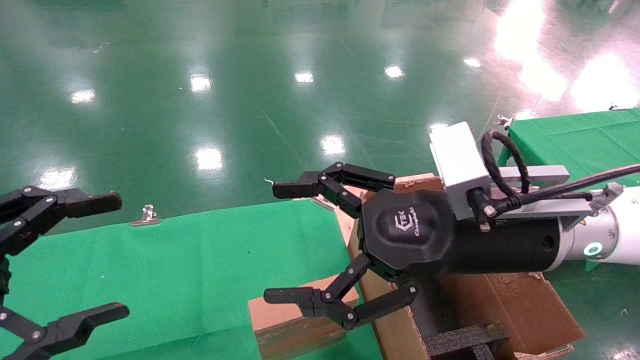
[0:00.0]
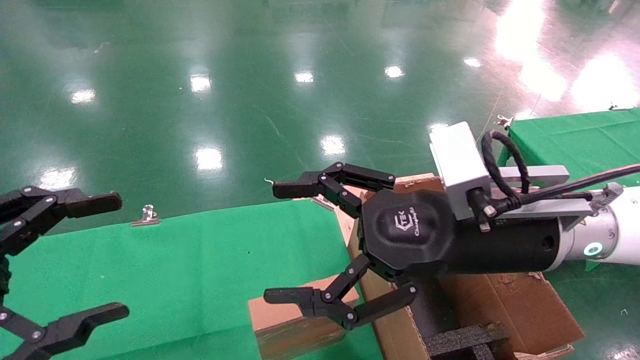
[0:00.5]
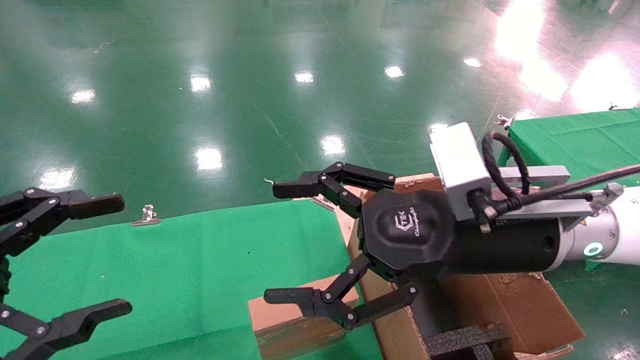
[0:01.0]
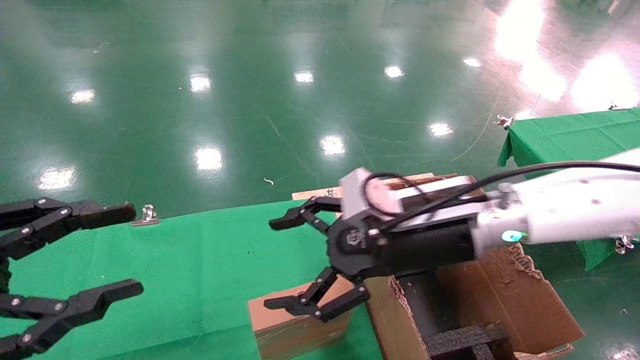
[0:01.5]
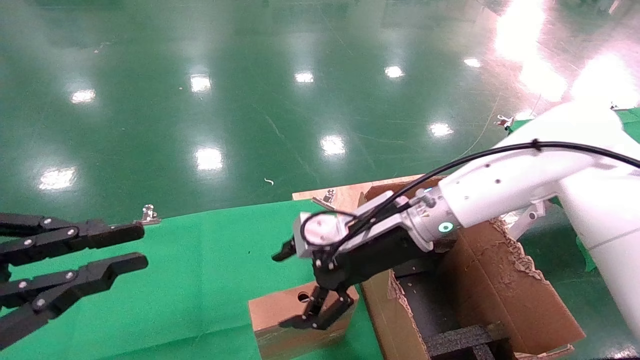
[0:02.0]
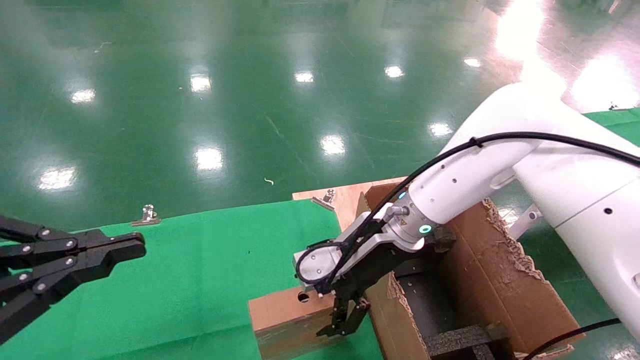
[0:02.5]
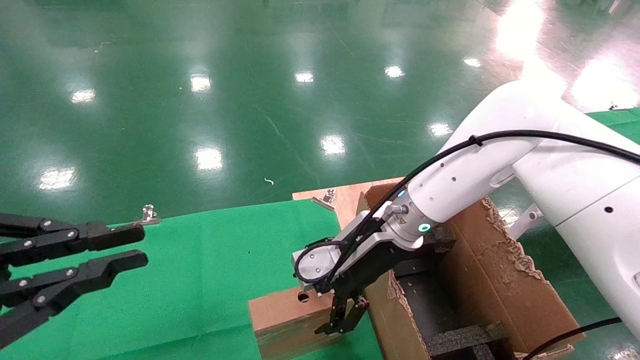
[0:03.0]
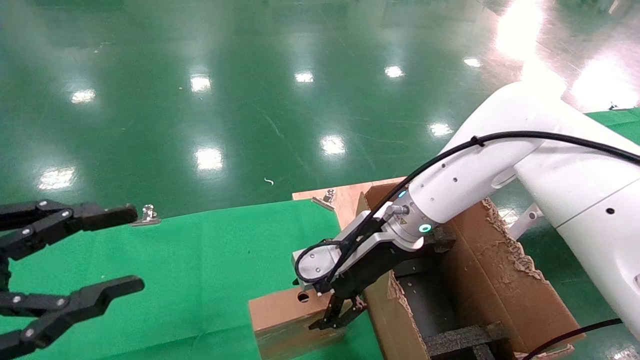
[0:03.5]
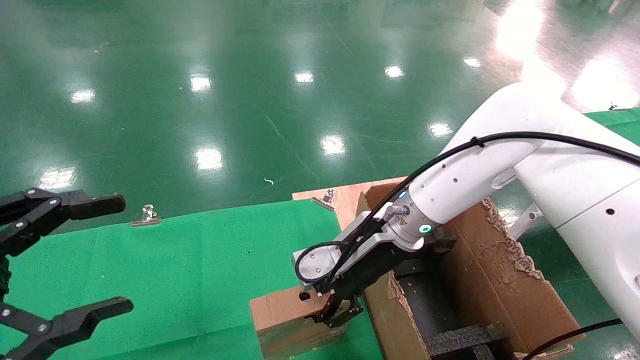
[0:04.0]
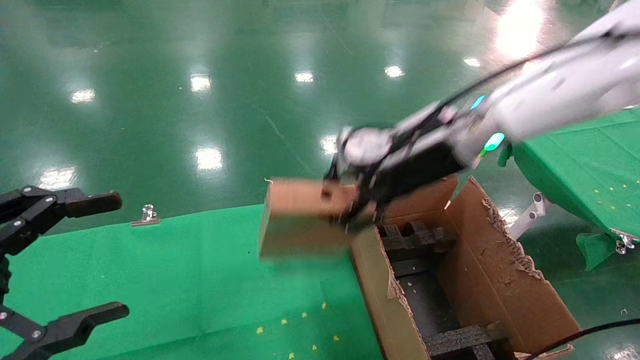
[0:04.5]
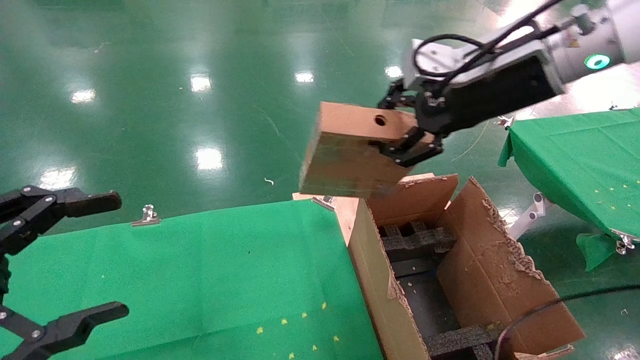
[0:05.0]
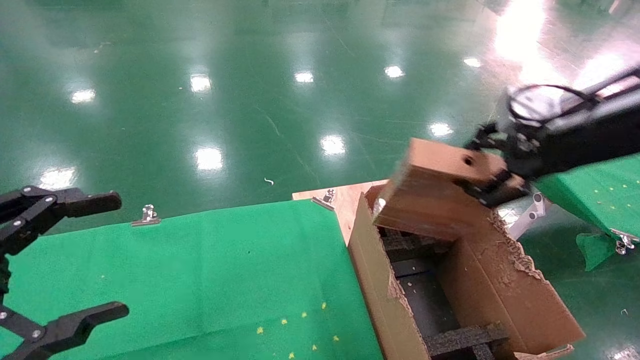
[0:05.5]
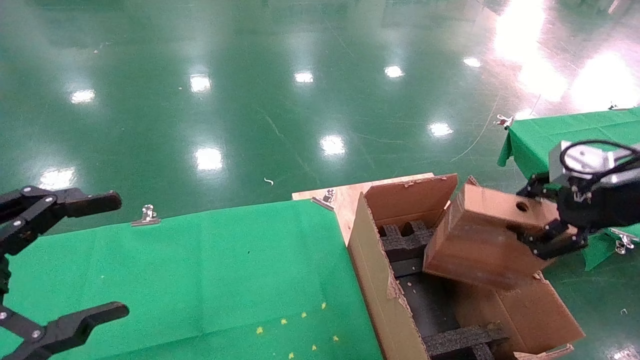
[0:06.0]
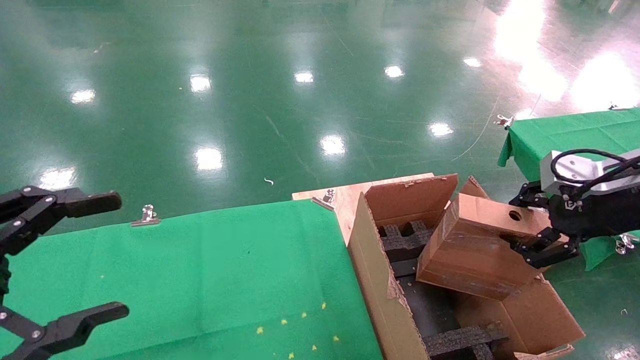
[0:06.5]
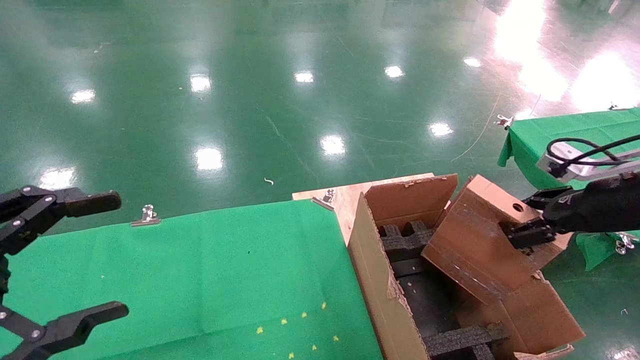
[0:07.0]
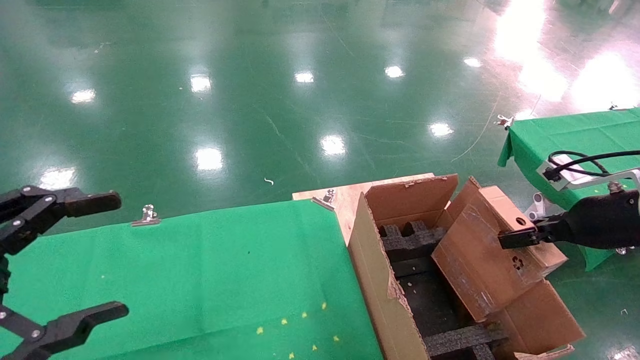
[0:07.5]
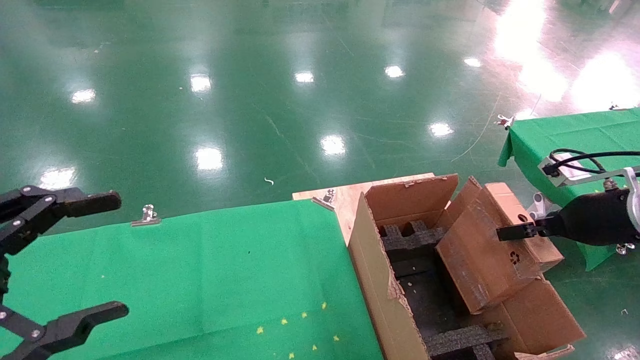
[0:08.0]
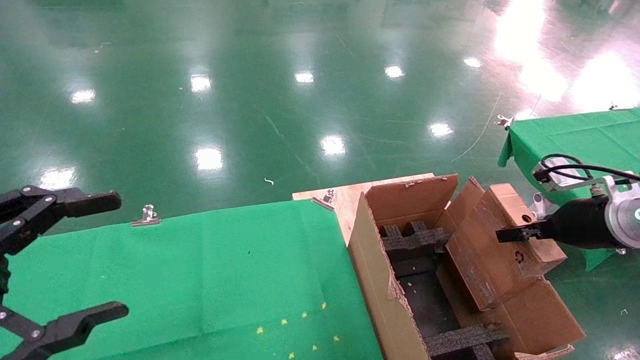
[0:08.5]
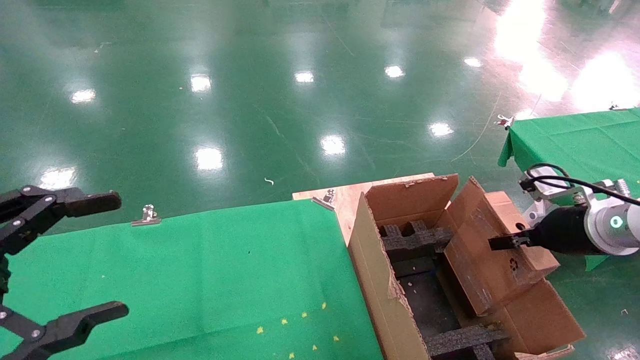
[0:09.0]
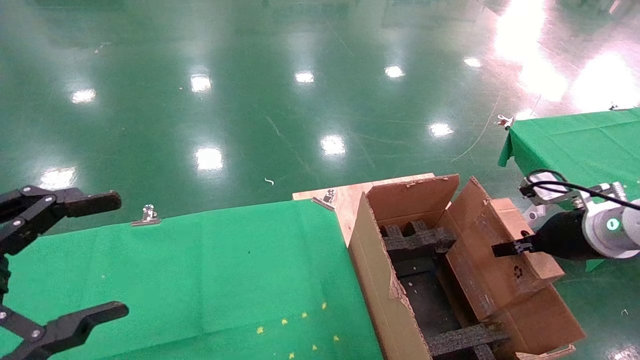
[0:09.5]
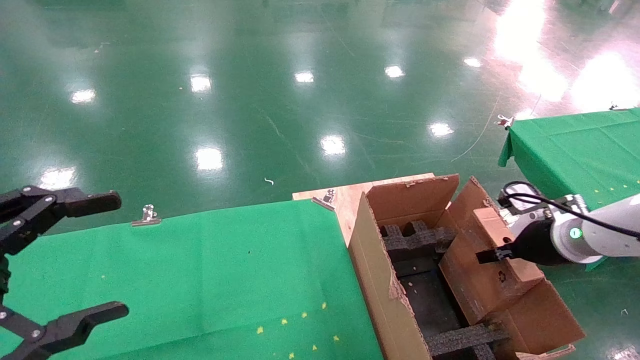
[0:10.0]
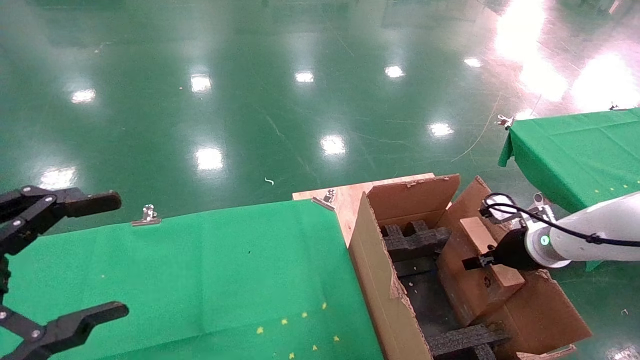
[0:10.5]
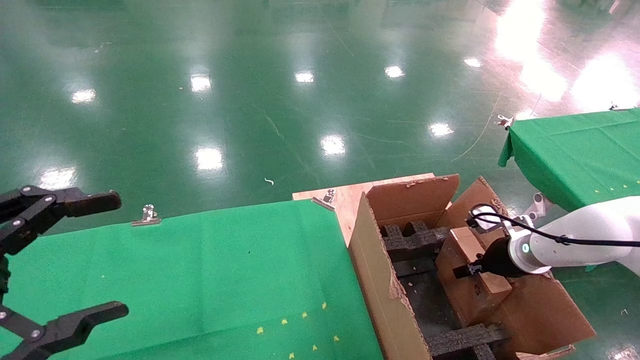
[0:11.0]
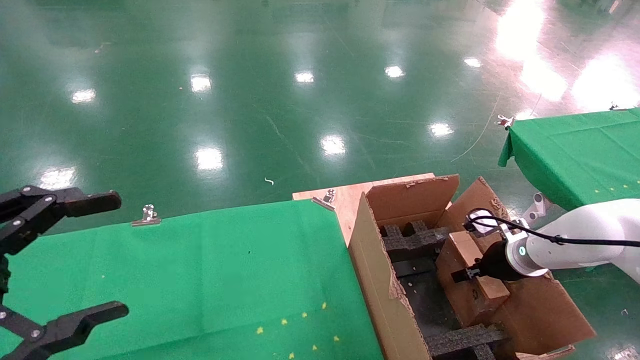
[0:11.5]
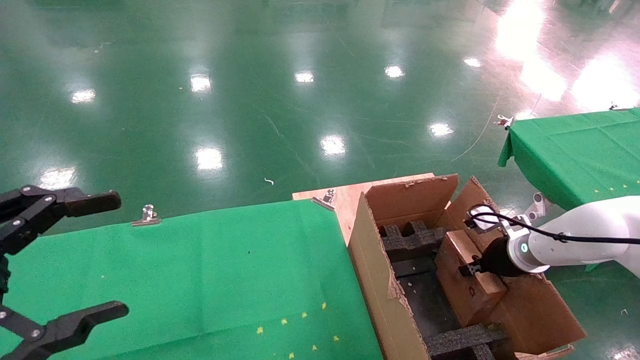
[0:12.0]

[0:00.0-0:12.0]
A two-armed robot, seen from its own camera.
Task of the whole recording: using a robotic arm to pick up a cardboard box and palace it the carton.
Step, 0:01.5 to 0:03.5: Pick up the mouse and the power cord paper box.
0:00.0 to 0:02.0: The left gripper closes its fingers; the right gripper is displaced forward, downward and to the left by some 15 cm.
0:02.0 to 0:04.0: The right gripper closes its fingers. Meanwhile the left gripper opens up.
0:04.0 to 0:06.0: The right gripper shifts some 30 cm to the right and backward.
0:06.0 to 0:08.0: The right gripper moves downward, approximately 10 cm.
0:08.0 to 0:10.0: The right gripper heads downward and forward, covering approximately 10 cm.
0:10.0 to 0:12.0: The right gripper is displaced downward and forward by approximately 10 cm.

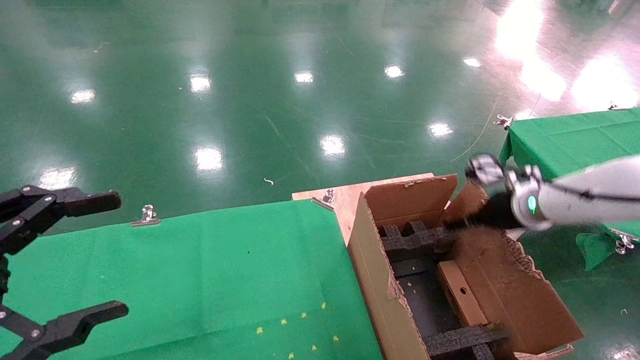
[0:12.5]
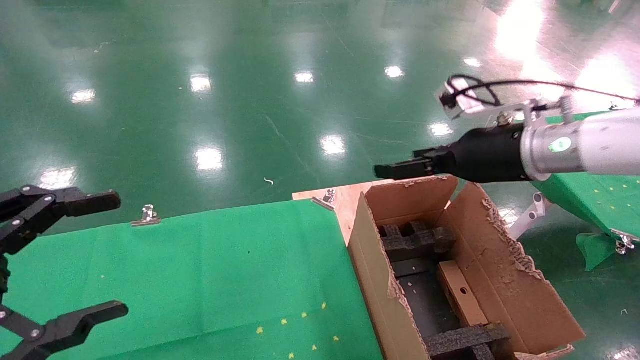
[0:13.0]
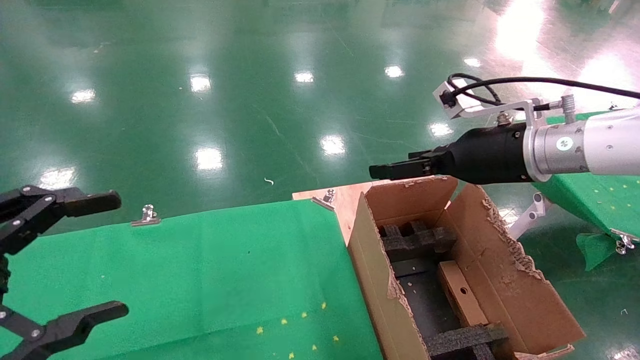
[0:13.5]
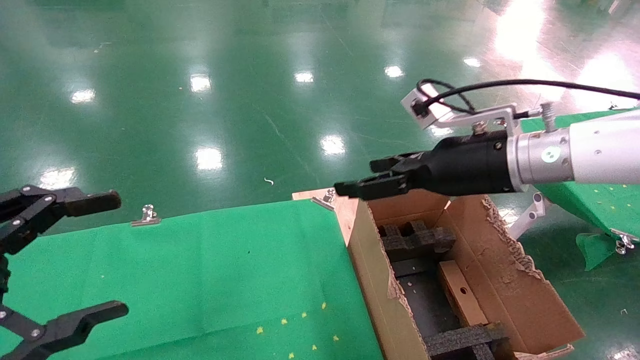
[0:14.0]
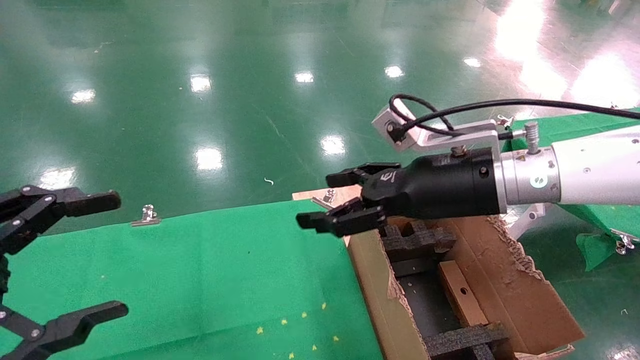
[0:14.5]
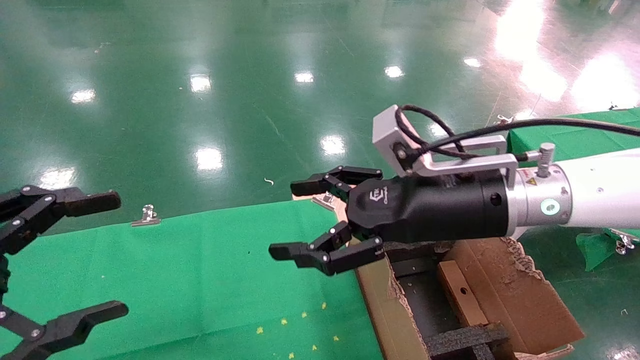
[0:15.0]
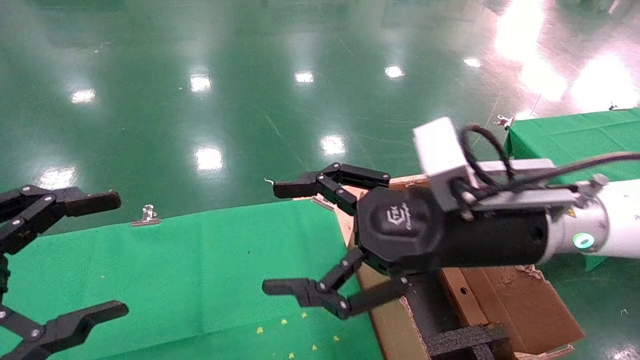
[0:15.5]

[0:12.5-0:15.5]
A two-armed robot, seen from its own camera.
Task of the whole recording: using a robotic arm to pick up a cardboard box and palace it the carton.
0:12.5 to 0:14.0: The right gripper travels to the left, upward and backward by roughly 20 cm.
0:14.0 to 0:15.5: The right gripper shifts some 10 cm backward and to the left.

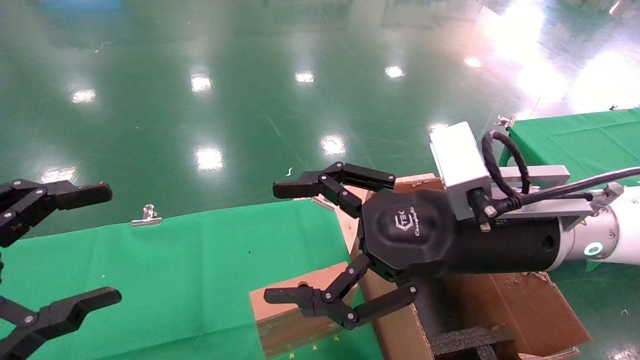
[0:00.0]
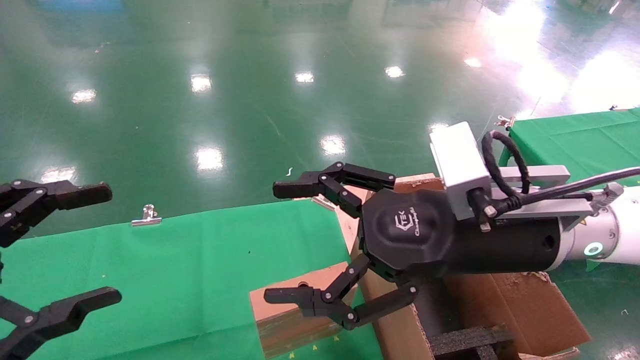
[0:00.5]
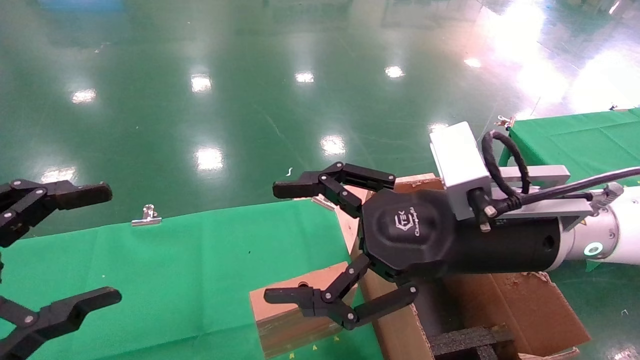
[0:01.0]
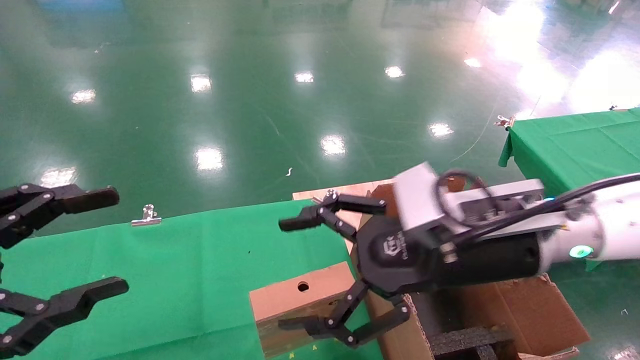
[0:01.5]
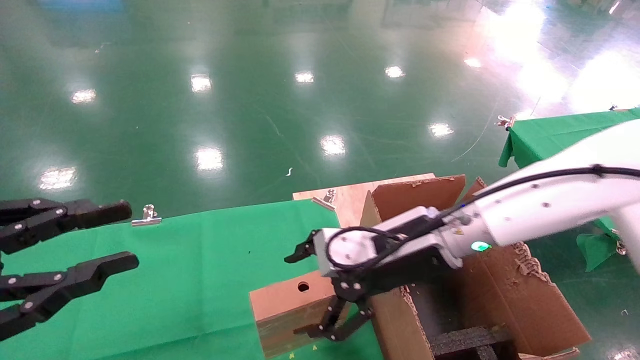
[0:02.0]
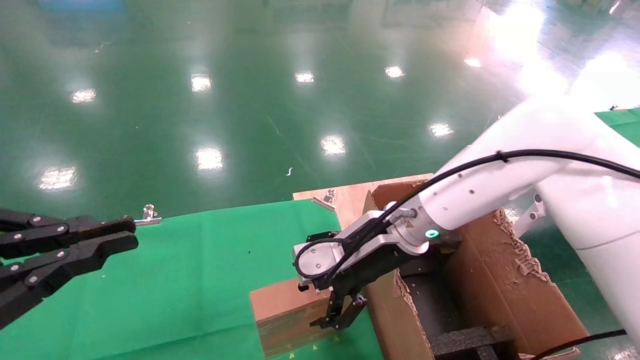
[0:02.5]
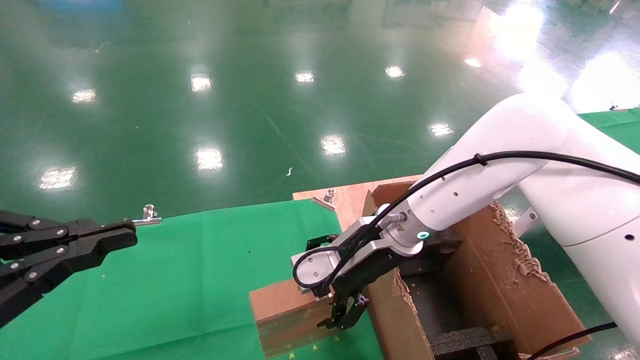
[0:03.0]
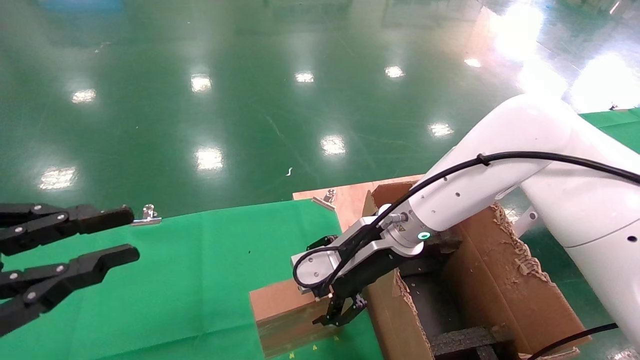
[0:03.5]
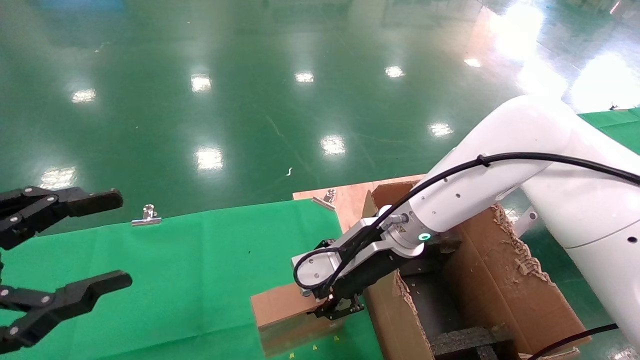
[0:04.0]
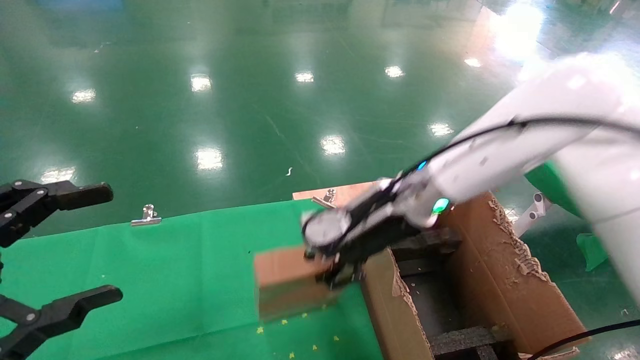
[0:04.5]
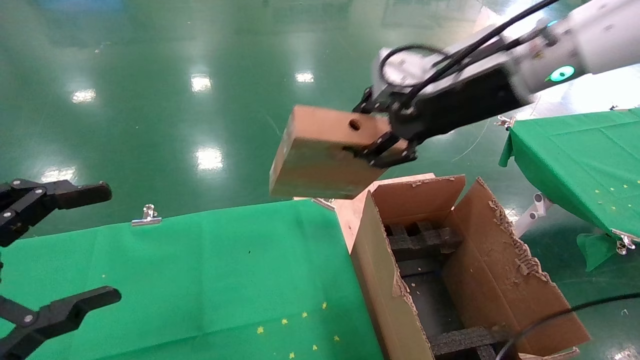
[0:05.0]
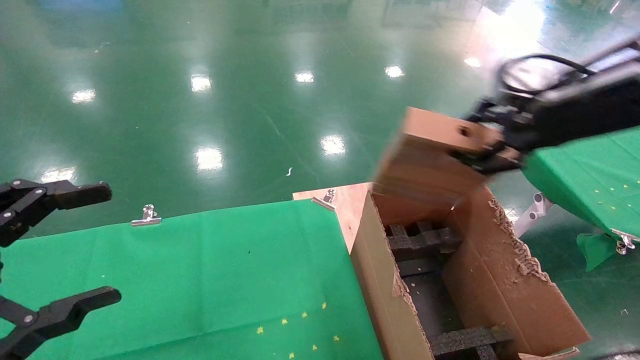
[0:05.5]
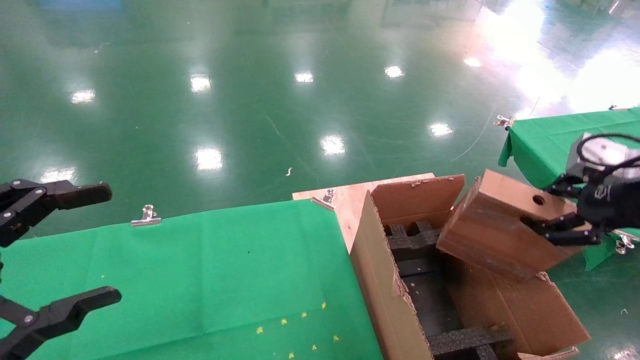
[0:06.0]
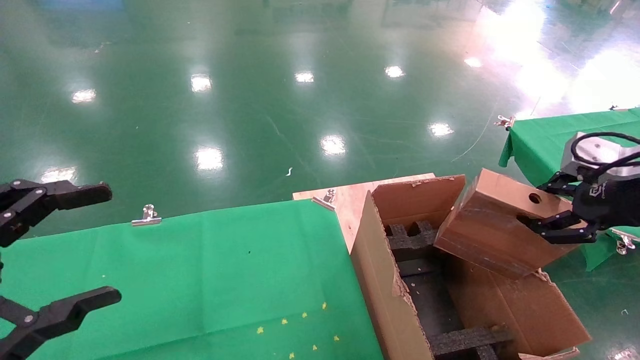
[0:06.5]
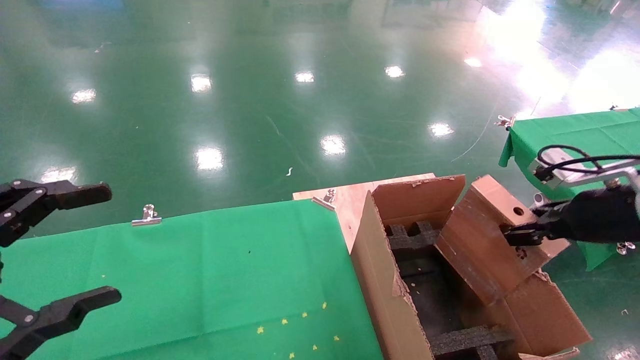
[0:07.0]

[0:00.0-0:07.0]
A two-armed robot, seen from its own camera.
Task of the whole recording: using a robotic arm to pick up a cardboard box and palace it the carton.
Step, 0:01.5 to 0:04.0: Pick up the mouse and the power cord paper box.
0:00.0 to 0:02.0: The right gripper moves forward and downward, about 10 cm; the left gripper closes its fingers.
0:02.0 to 0:03.5: The right gripper moves some 5 cm.
0:03.5 to 0:05.0: The right gripper is displaced upward and to the right by roughly 20 cm, and closes up. Meanwhile the left gripper opens its fingers.
0:05.0 to 0:07.0: The right gripper is displaced to the right and downward by approximately 25 cm.
